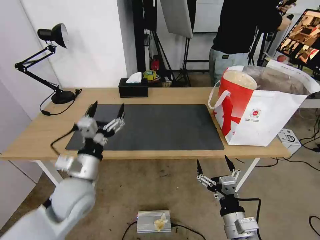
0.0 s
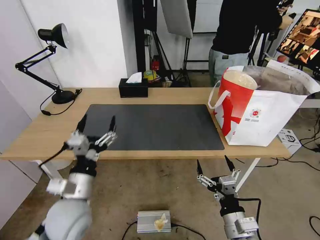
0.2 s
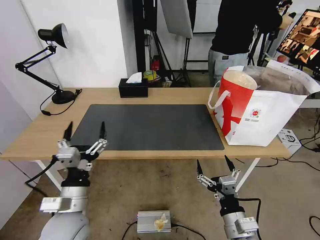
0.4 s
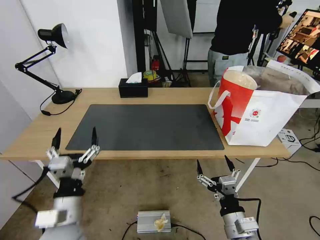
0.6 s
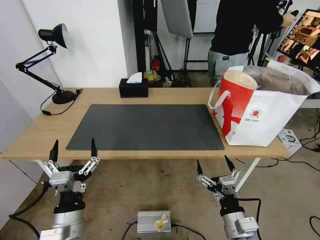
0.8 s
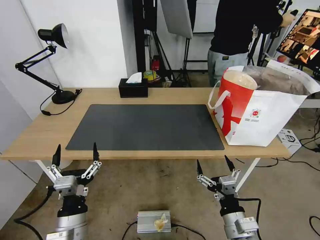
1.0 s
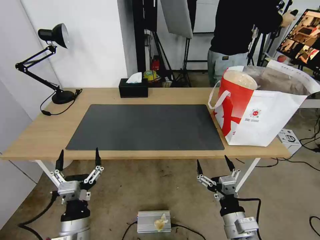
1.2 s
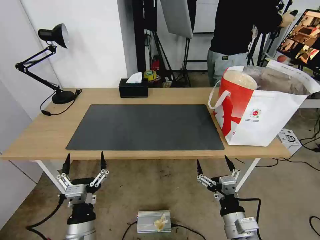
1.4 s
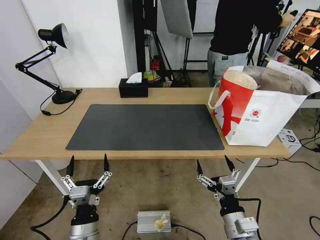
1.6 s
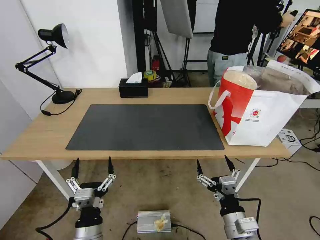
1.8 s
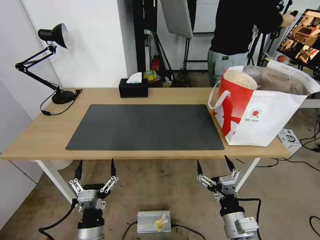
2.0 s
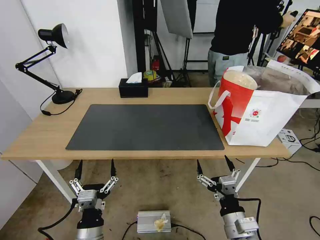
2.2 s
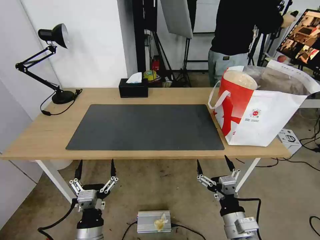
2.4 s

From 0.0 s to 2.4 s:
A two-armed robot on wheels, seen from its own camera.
Task of the whole recording: Pick up the trash from the table and place it into the takeout bag.
From 0.0 s to 1.2 s: The left gripper shifts about 15 cm backward and downward.
From 1.2 s to 2.4 s: There are only small adjustments of the grippers.
